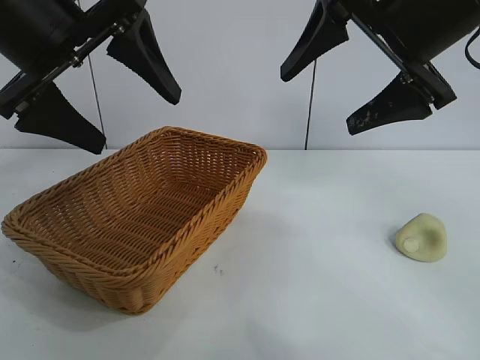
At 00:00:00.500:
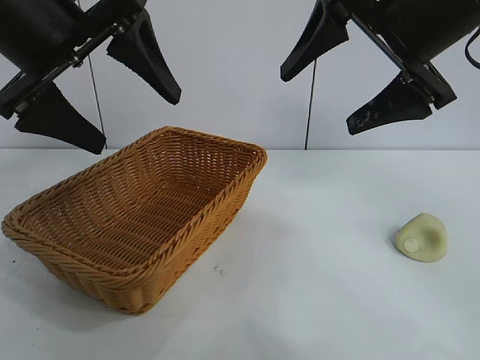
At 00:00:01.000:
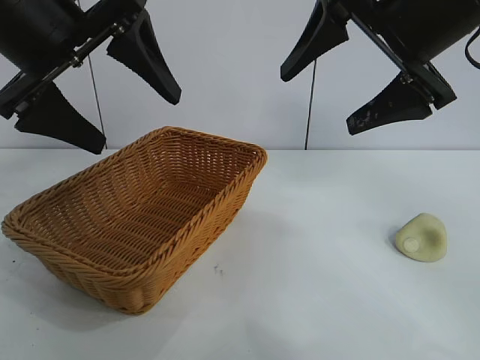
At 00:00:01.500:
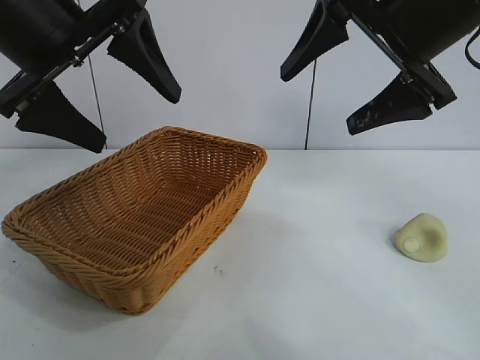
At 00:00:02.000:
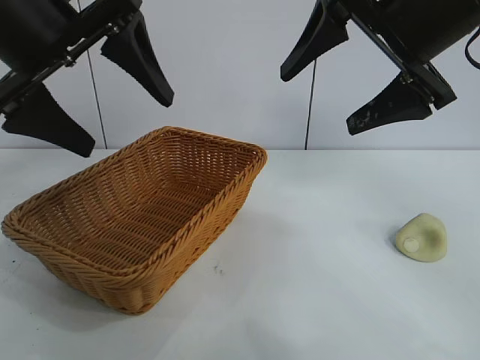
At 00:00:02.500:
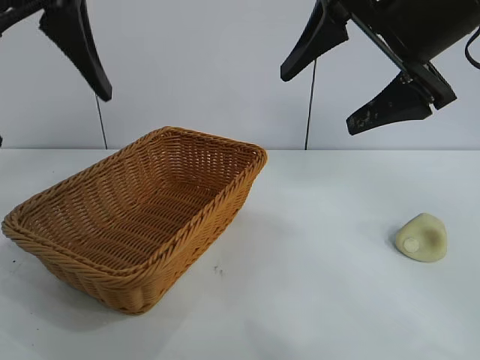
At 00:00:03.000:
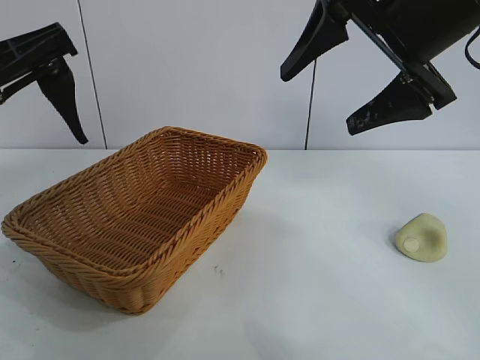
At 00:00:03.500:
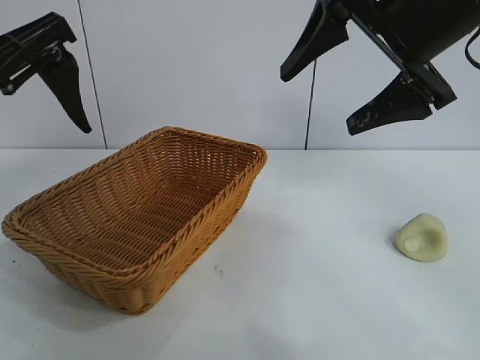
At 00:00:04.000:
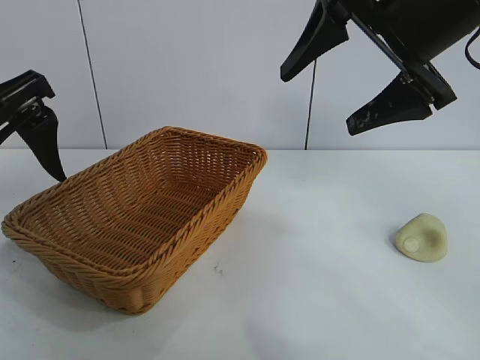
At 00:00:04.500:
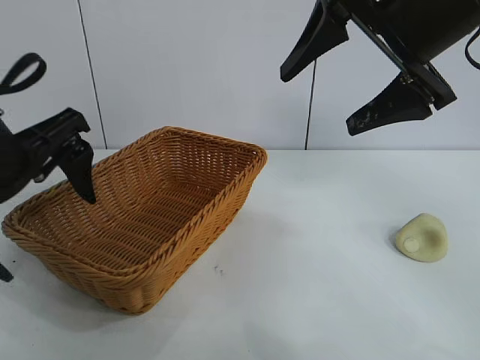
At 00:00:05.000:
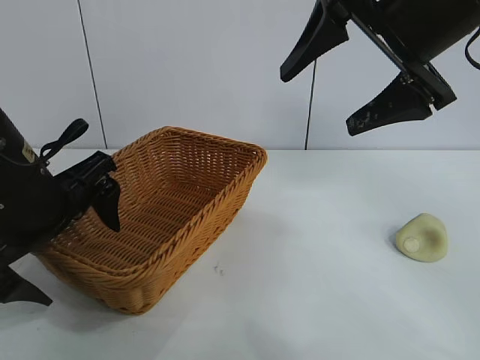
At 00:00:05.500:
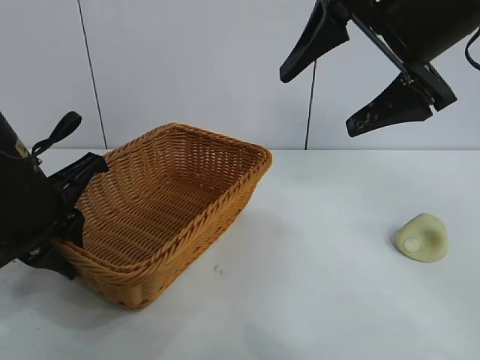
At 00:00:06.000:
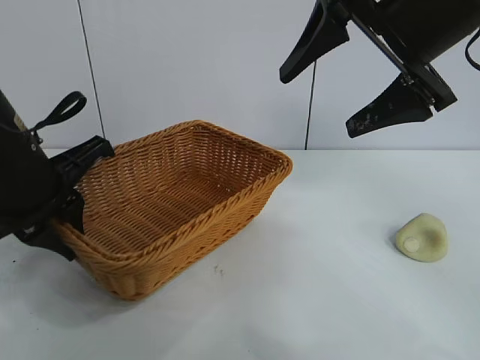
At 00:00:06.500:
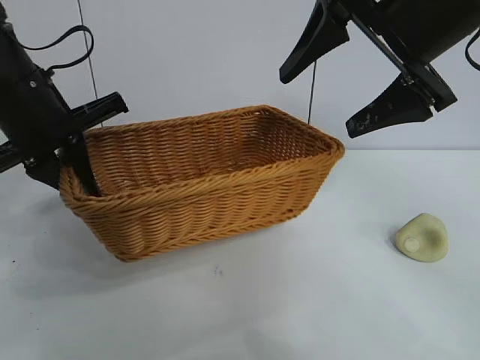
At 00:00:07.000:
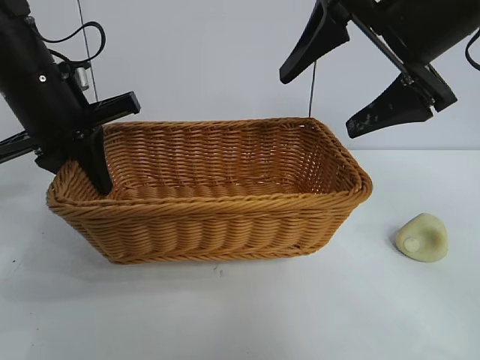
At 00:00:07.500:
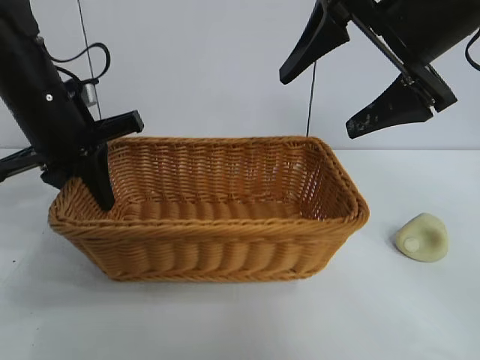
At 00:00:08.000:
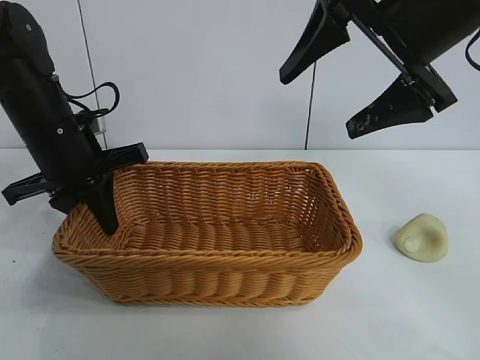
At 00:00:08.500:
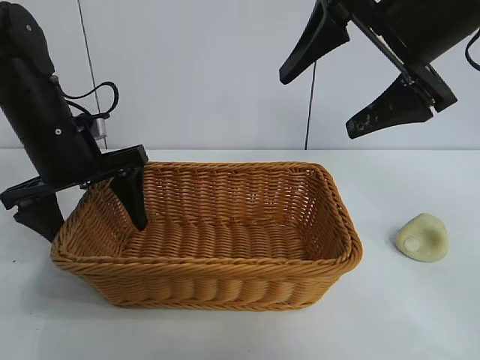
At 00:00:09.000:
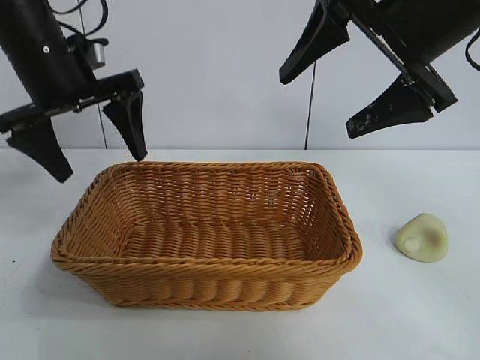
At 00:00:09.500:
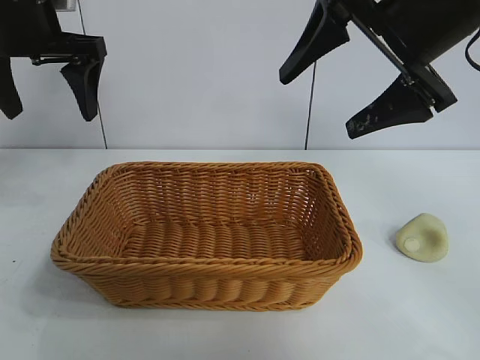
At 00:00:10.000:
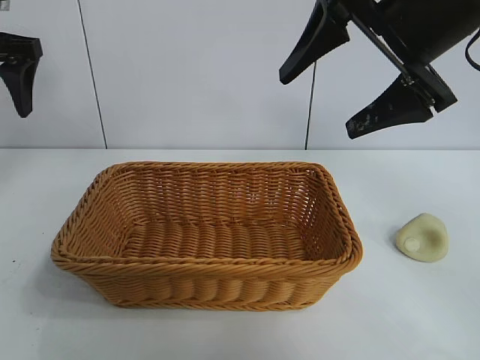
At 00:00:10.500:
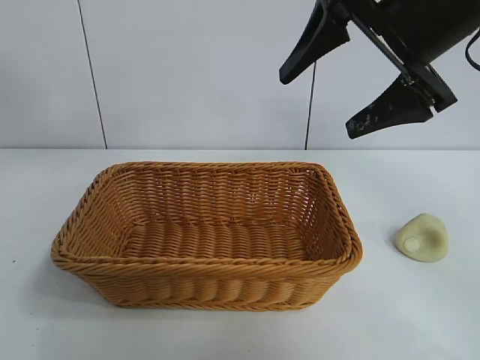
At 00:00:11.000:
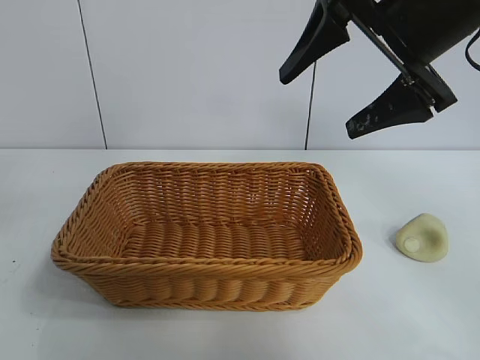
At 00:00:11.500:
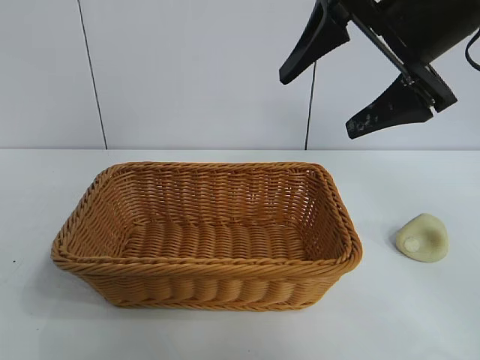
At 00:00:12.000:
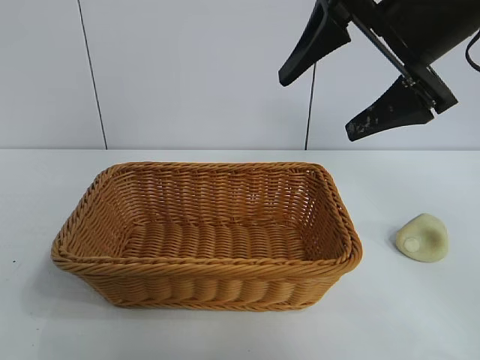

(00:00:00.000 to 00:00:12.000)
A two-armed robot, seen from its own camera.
Task of the whole recording: pick up the egg yolk pastry and put it into the basket.
Step, 00:00:02.000 - 00:00:05.500: Grasp the basket with left gripper.
Step, 00:00:06.000 - 00:00:08.500: Place the basket in the center of view with left gripper.

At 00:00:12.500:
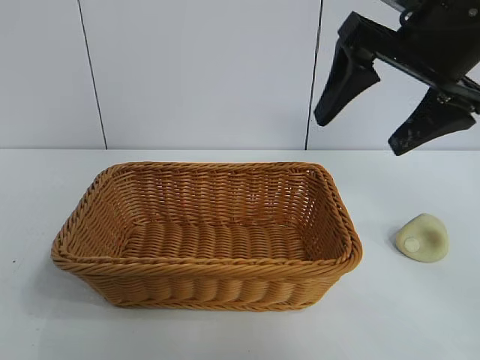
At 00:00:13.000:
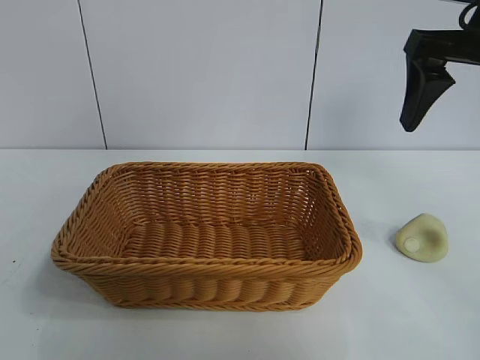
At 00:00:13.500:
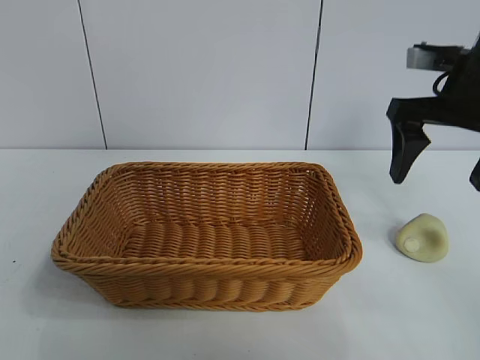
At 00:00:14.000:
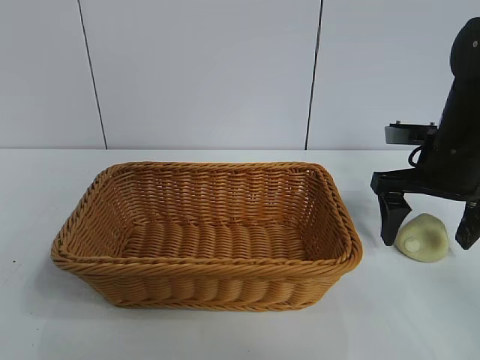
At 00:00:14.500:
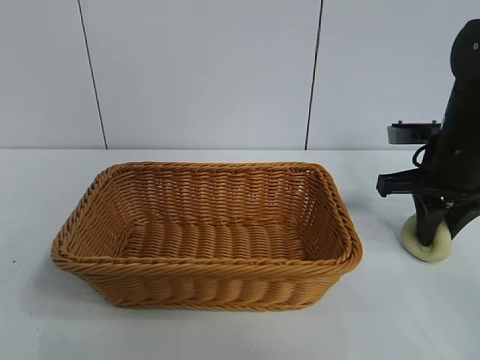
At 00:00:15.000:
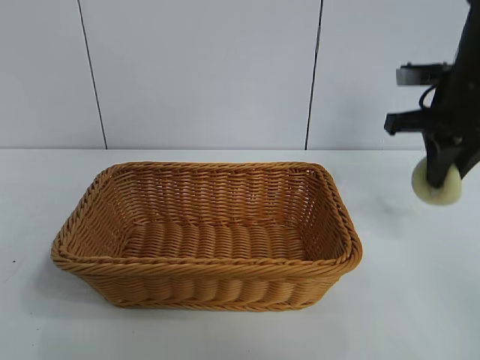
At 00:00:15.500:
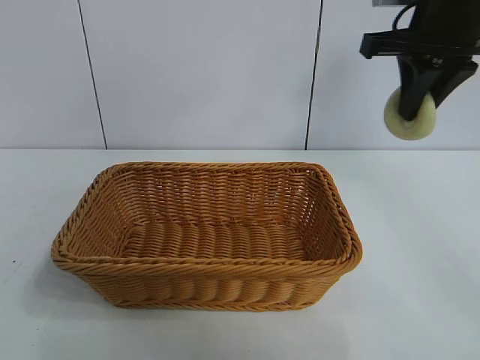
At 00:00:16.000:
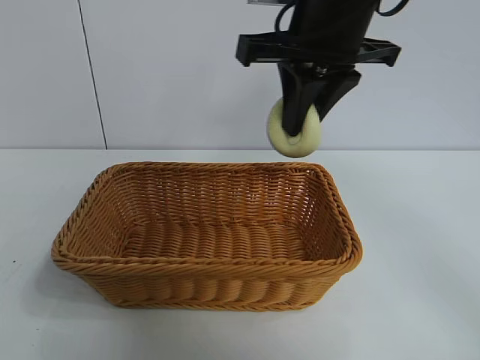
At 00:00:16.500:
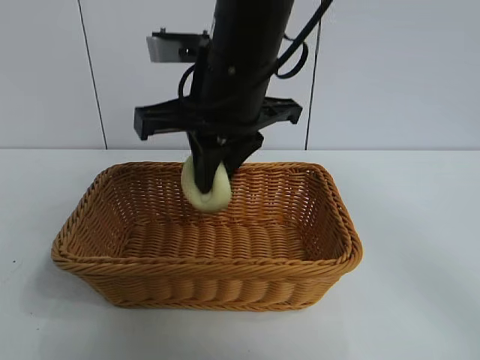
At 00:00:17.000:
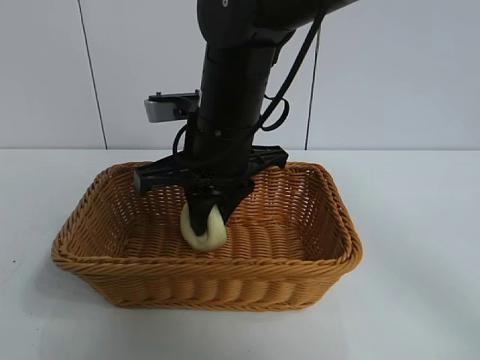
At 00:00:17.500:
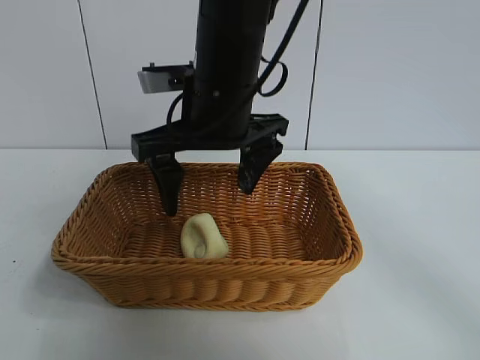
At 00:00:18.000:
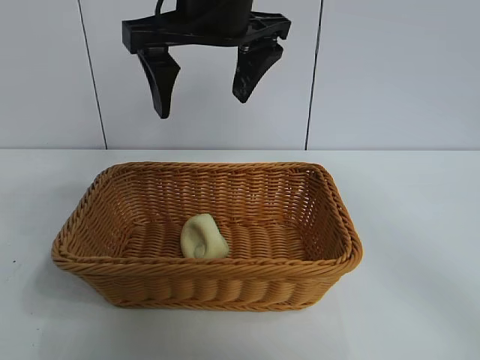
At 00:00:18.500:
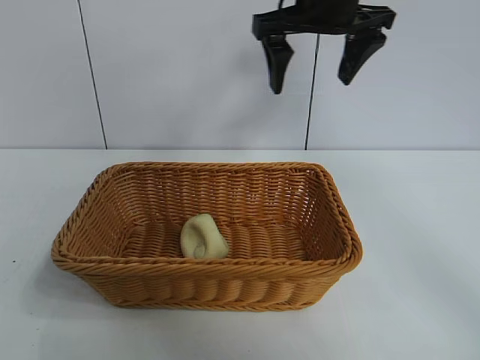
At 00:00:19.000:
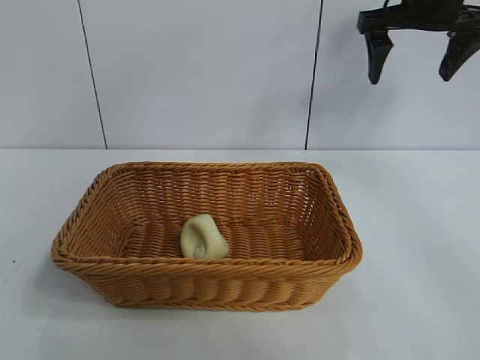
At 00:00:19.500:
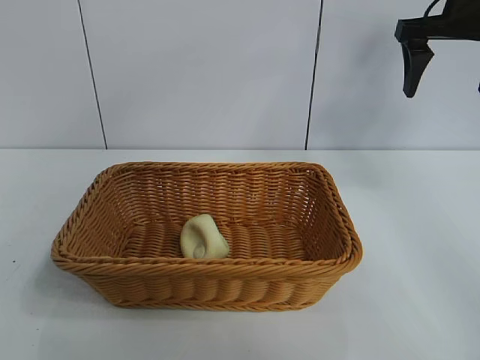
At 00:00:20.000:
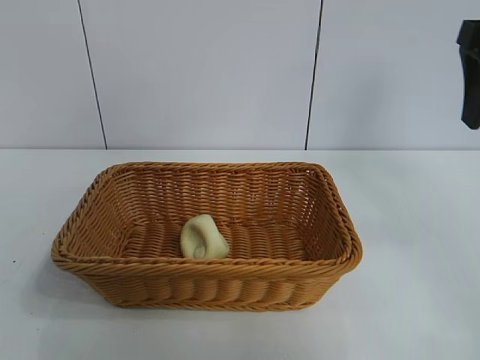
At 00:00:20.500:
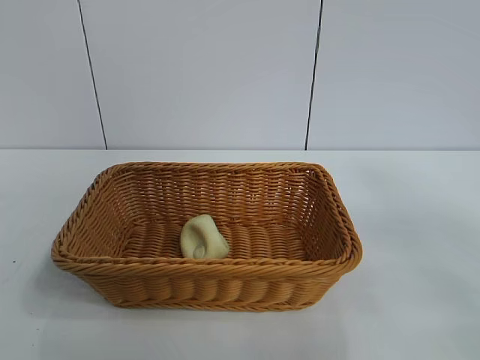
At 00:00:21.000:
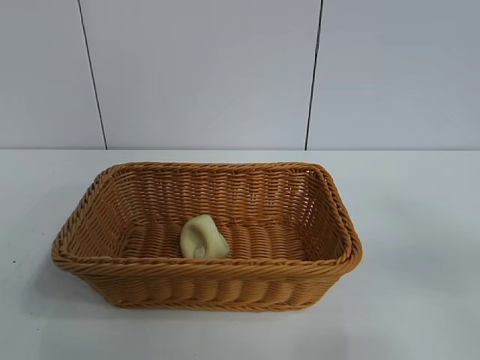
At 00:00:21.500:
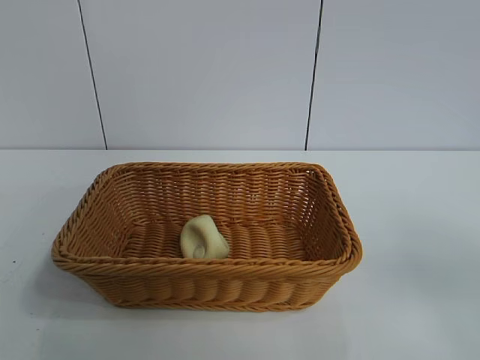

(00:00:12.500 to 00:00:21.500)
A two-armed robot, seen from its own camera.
Task of the whole recording: pick up the egg yolk pastry and put it into the basket.
Step, 00:00:12.500 - 00:00:14.500: Grasp egg yolk pastry with right gripper.
Step, 00:00:15.000 - 00:00:17.000: Place the egg yolk pastry in the basket with right gripper.

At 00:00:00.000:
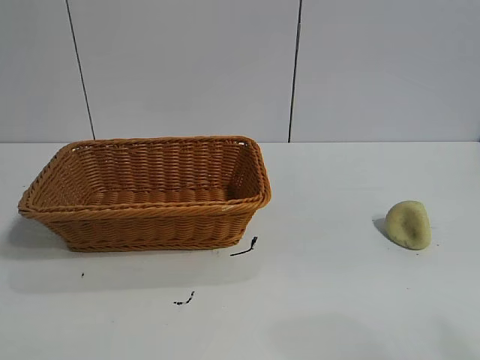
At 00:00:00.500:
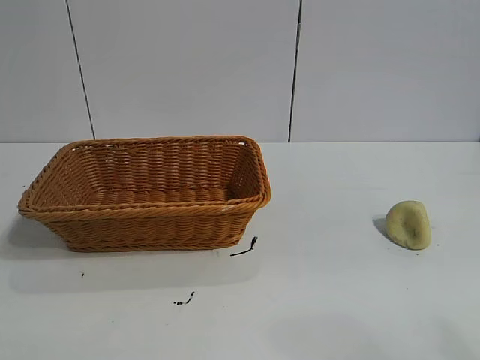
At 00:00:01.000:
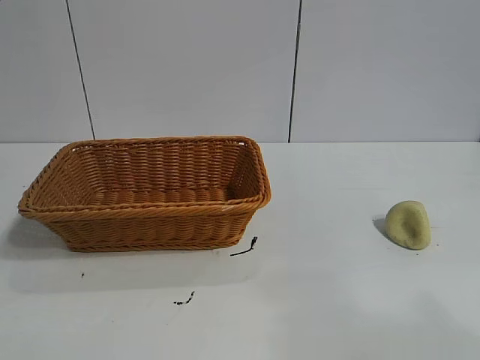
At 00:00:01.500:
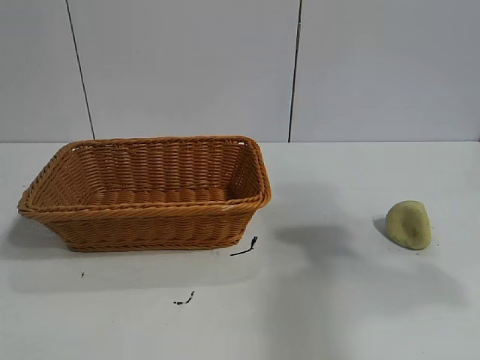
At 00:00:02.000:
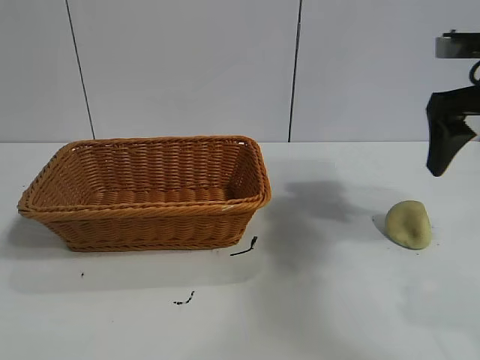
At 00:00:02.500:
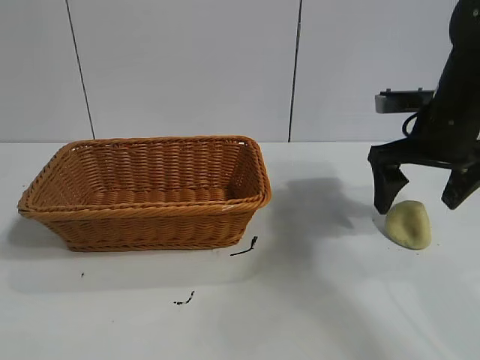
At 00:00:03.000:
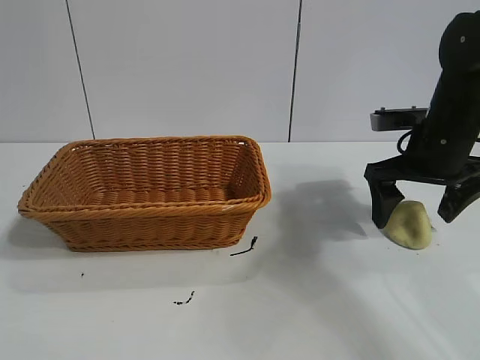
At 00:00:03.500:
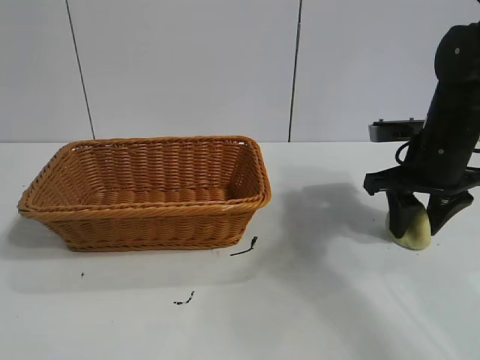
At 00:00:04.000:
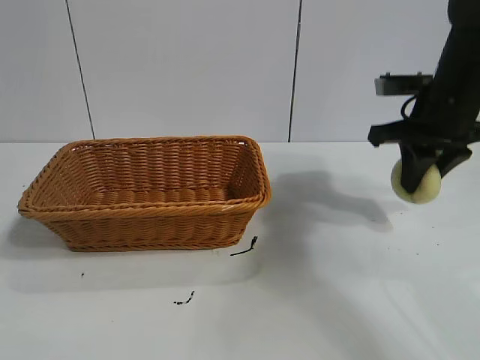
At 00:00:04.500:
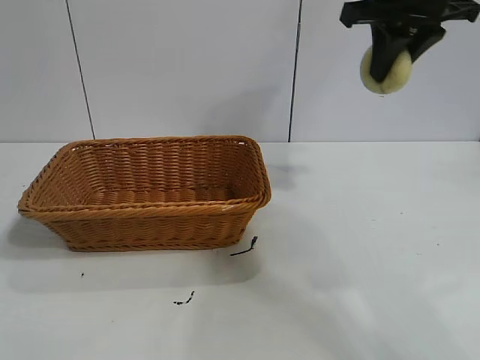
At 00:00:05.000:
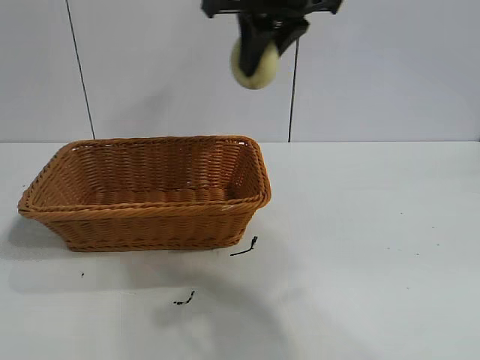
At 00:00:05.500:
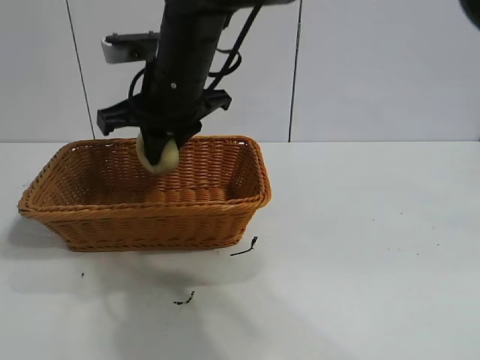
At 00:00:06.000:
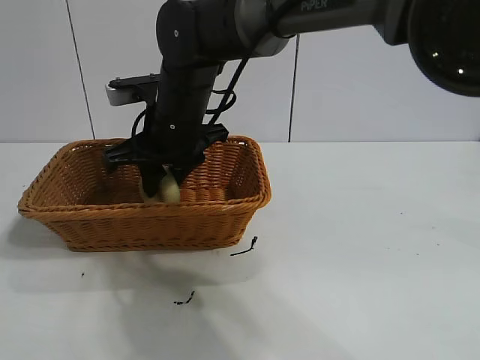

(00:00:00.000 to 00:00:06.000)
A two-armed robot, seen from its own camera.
Task of the whole recording: pick up the egg yolk pastry and put it into the basket.
Step, 00:00:01.000 - 00:00:03.500: Grasp egg yolk pastry with right gripper.
